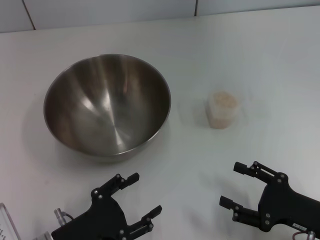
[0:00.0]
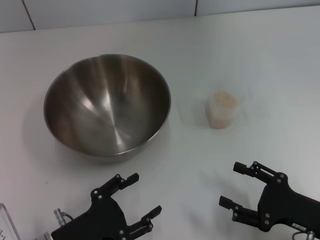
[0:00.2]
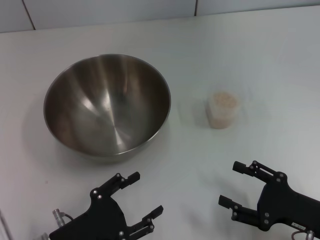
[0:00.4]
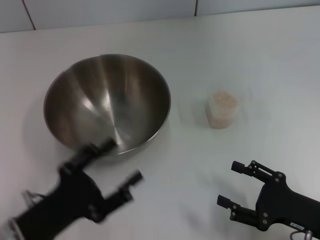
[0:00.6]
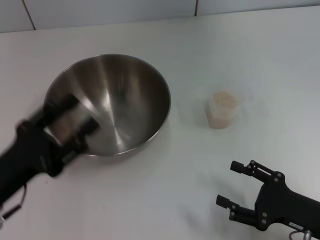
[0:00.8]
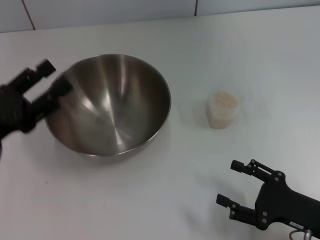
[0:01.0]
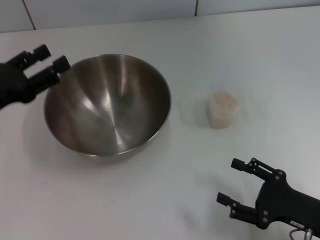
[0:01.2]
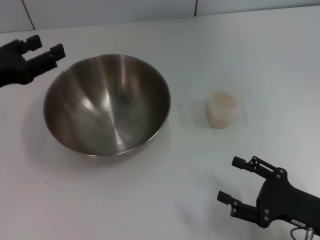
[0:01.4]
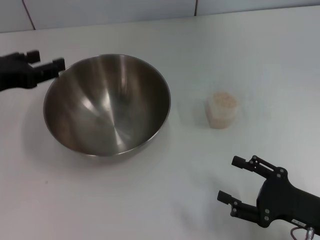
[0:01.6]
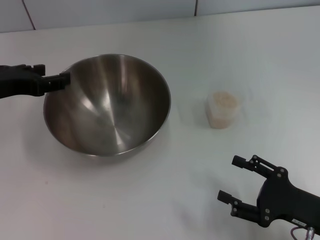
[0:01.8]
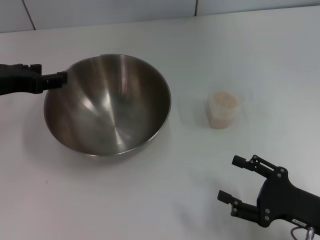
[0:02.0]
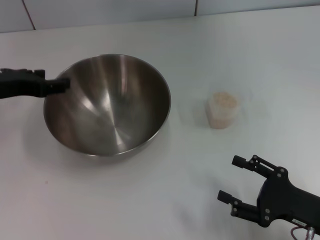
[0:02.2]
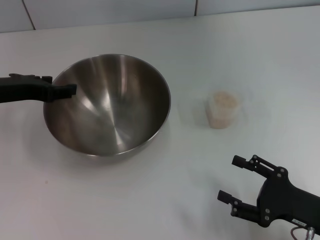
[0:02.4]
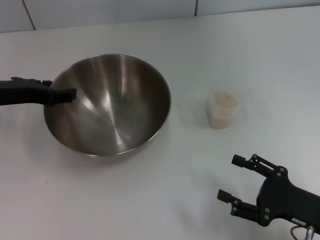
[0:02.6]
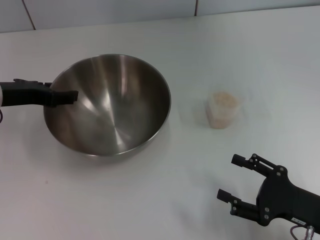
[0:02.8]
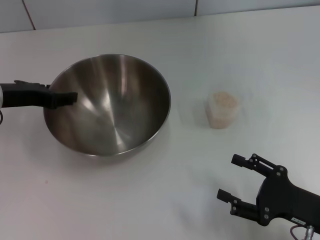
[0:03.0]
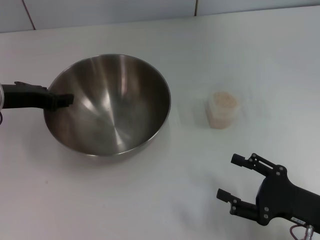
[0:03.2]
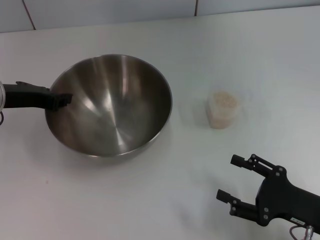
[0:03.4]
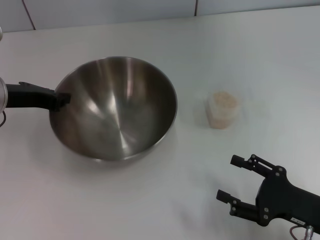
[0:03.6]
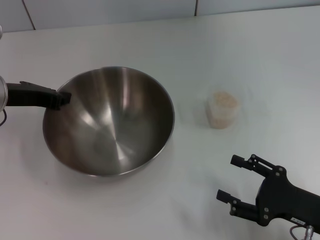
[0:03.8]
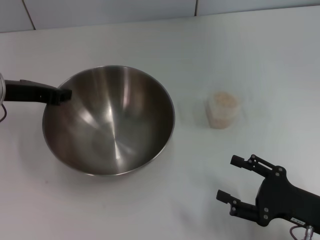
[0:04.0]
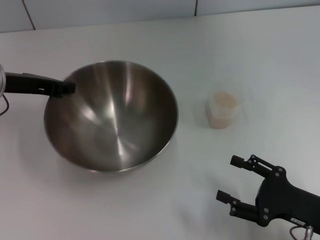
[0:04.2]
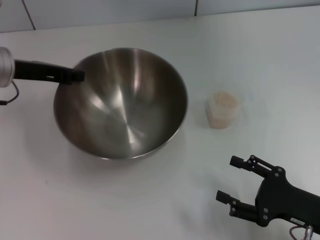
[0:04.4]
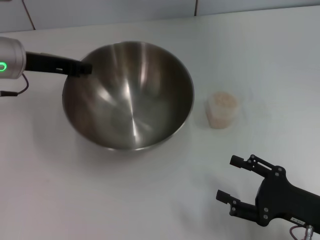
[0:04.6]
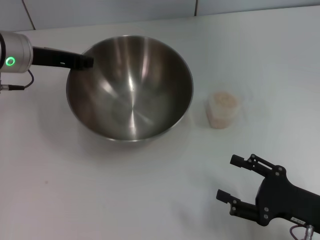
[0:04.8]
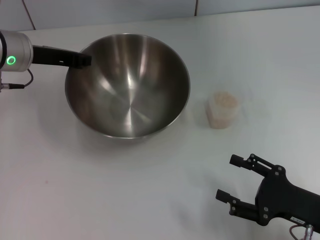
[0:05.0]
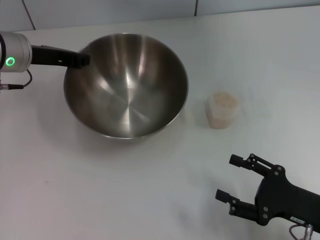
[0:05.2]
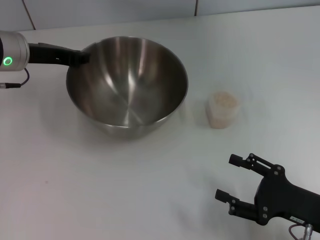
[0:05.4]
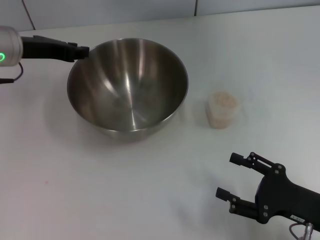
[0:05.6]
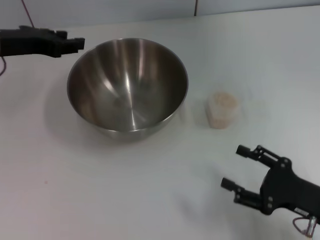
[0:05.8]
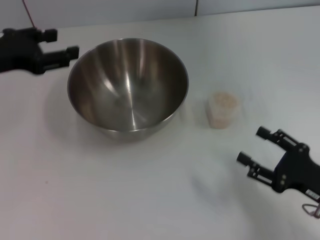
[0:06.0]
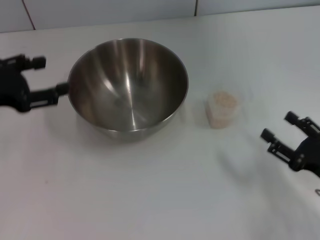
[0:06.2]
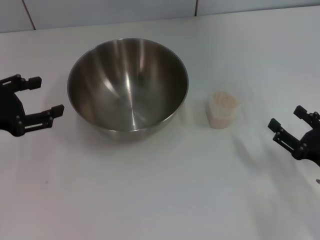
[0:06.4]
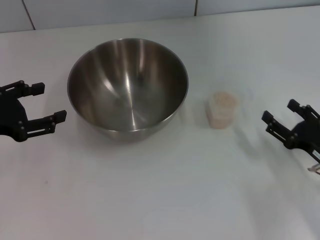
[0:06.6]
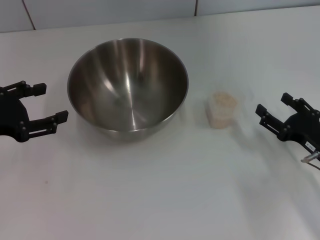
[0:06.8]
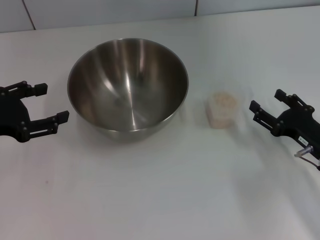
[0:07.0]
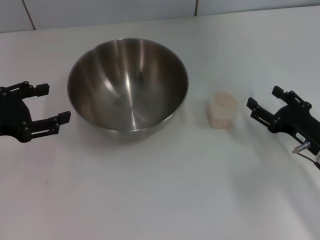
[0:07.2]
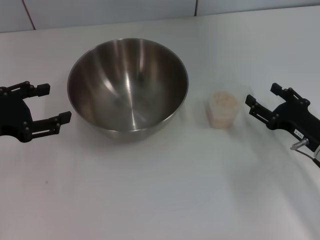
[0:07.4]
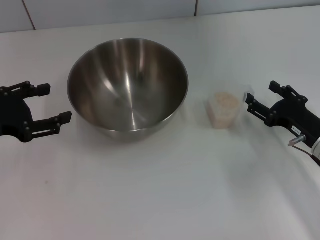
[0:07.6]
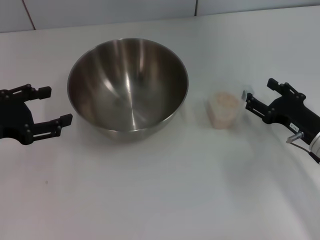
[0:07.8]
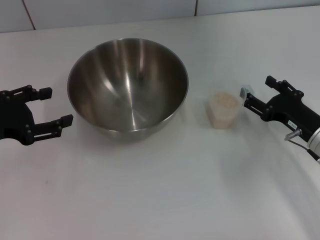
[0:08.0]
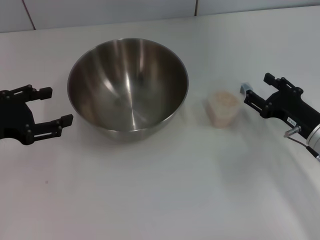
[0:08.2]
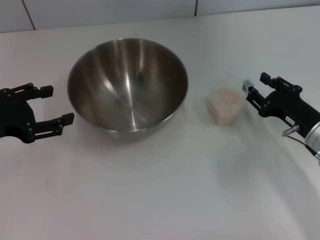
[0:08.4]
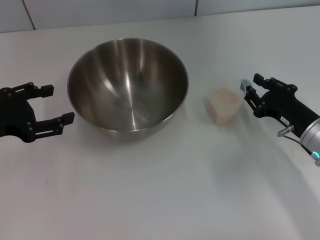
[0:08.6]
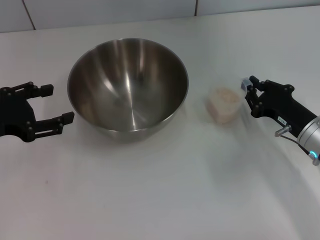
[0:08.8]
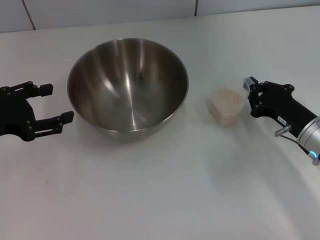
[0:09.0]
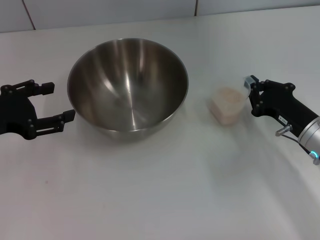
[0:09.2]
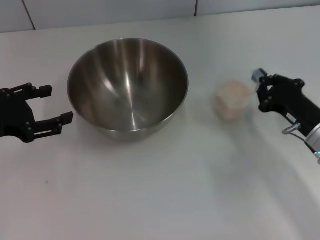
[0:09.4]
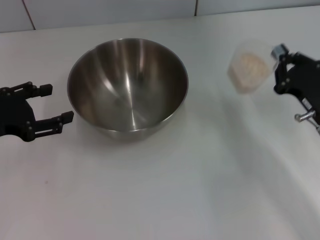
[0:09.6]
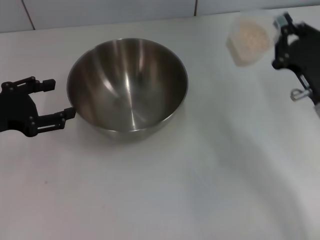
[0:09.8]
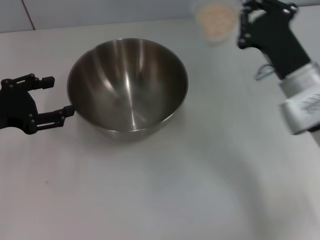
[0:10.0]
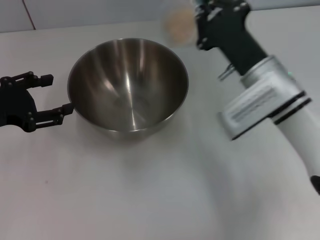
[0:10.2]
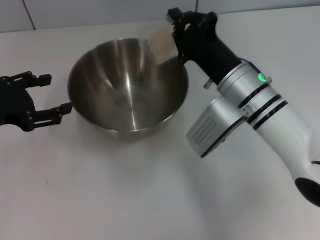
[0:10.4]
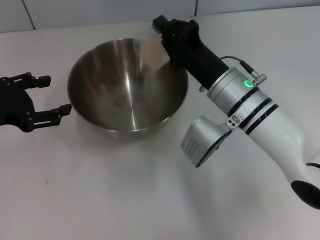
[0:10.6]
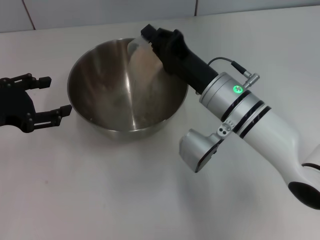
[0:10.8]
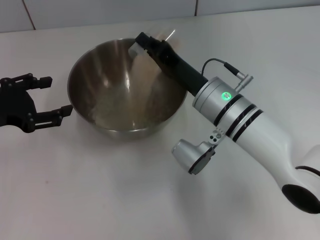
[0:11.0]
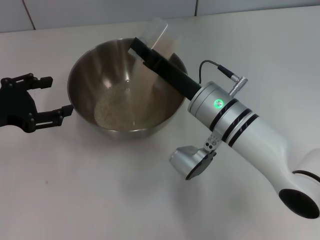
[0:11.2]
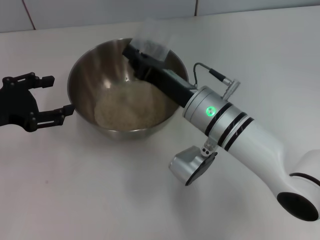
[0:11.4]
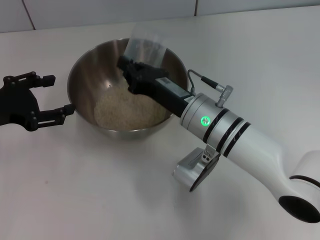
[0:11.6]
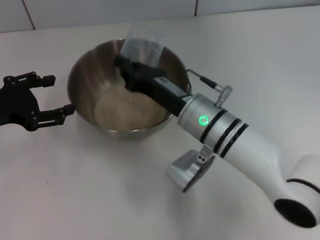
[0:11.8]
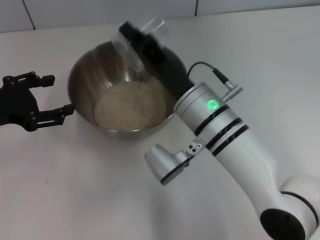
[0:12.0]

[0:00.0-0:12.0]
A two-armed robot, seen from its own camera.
Task of the whole recording: Place the bowl in the middle of the table with one hand and pour the rice from the grain cup into it with the other hand.
Step, 0:00.0 to 0:04.4: Pick up the bowl with the left gripper.
Step, 0:04.6 to 0:05.6: Place the bowl in the center of view with the left gripper.
Step, 0:06.0 to 0:09.6: Pick up the cup with rice in it with the right gripper.
0:00.0 to 0:01.6: The left gripper moves upward and forward, approximately 25 cm.
0:01.6 to 0:03.0: The left gripper ends up roughly 5 cm from where it was.
0:03.0 to 0:04.4: The left gripper closes.
0:04.4 to 0:06.0: The left gripper shifts by some 5 cm, and opens its fingers.
0:06.0 to 0:07.6: The left gripper shifts about 5 cm backward, and opens up. Meanwhile the right gripper is displaced forward by some 10 cm.
0:07.6 to 0:09.0: The right gripper closes up.
0:09.0 to 0:10.4: The right gripper shifts roughly 15 cm to the left, upward and forward.
0:10.4 to 0:12.0: The right gripper shifts some 5 cm to the left.

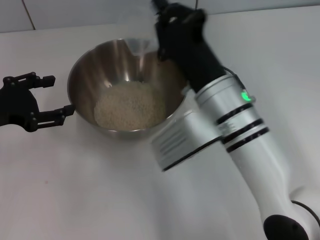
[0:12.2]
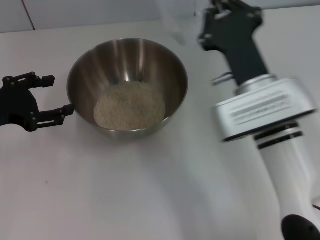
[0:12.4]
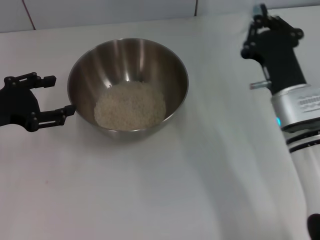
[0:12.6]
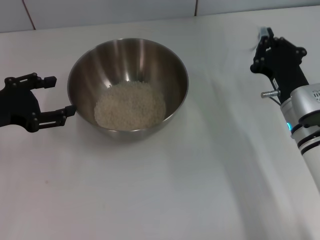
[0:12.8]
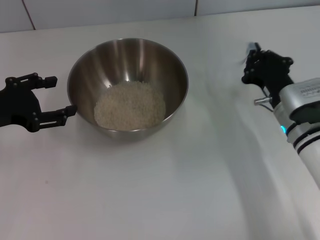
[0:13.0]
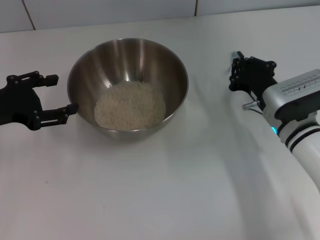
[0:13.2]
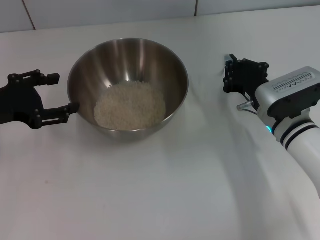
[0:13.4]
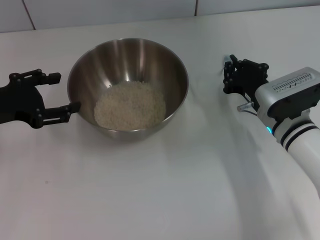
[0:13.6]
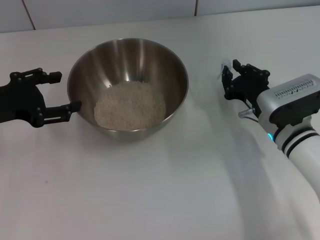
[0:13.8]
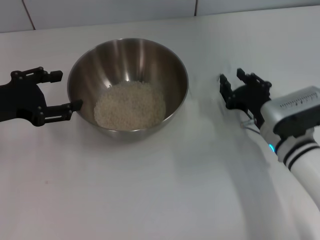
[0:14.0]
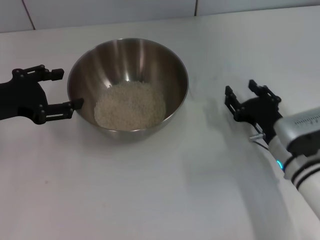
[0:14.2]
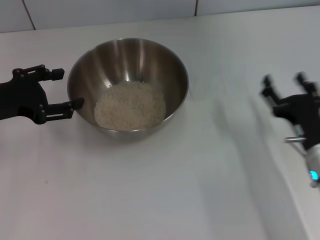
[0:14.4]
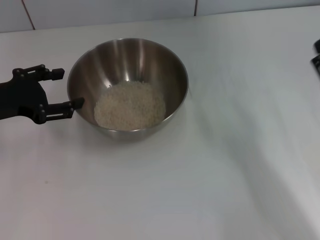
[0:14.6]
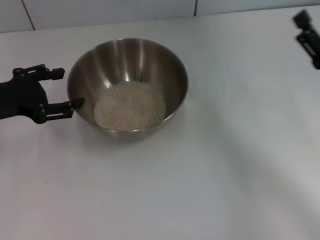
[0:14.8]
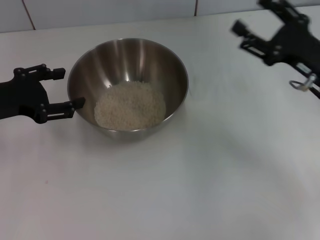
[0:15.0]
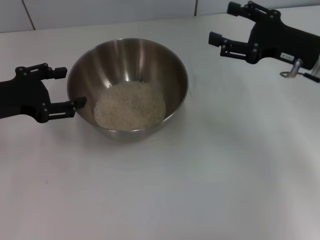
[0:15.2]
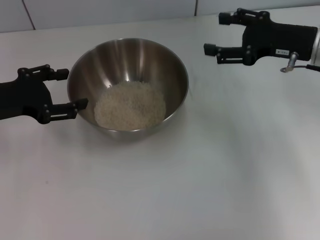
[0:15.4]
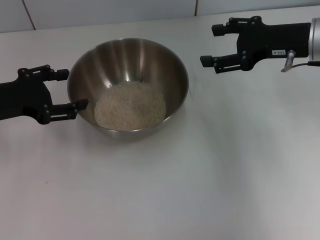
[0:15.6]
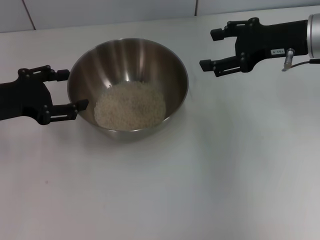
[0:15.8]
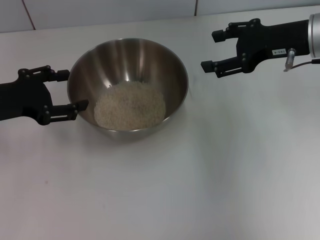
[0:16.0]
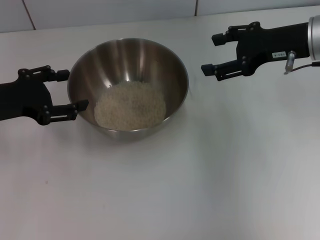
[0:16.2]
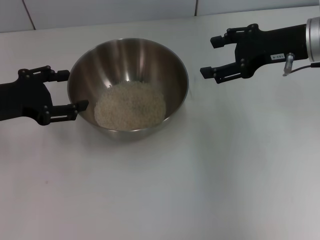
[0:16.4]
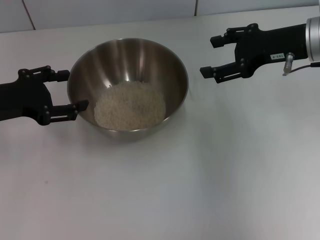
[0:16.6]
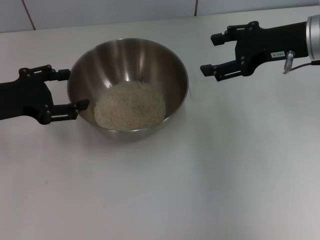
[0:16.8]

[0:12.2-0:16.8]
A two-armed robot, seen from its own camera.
Task of the whole recording: Place the bowl in the middle of the table with one hand and pour the rice from the grain cup into it with the other hand.
Step, 0:12.4 to 0:14.0: Place the cup on the table with the right gripper.
0:12.2 to 0:13.8: The right gripper is displaced to the right and downward by roughly 15 cm.
0:13.8 to 0:15.2: The right gripper goes about 15 cm upward and to the right, reaches roughly 10 cm backward, then returns, and opens.
0:15.2 to 0:16.8: The right gripper goes approximately 5 cm upward.
